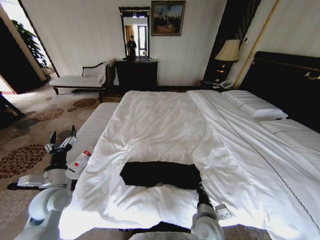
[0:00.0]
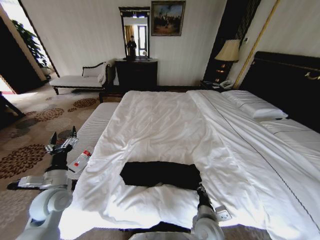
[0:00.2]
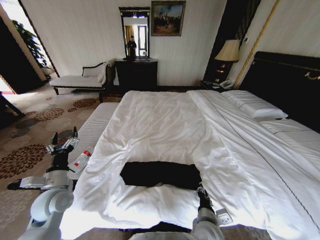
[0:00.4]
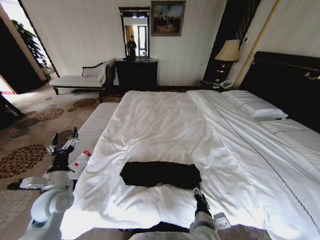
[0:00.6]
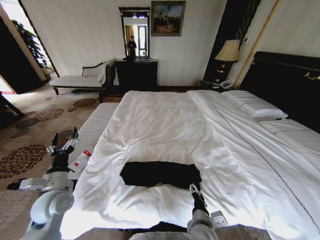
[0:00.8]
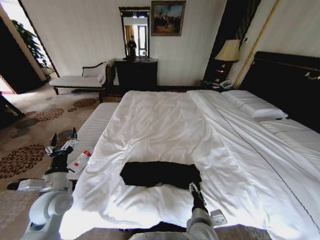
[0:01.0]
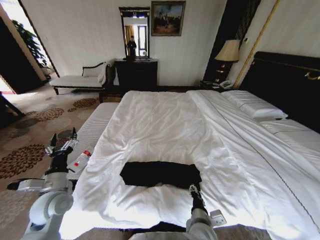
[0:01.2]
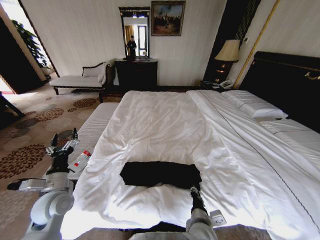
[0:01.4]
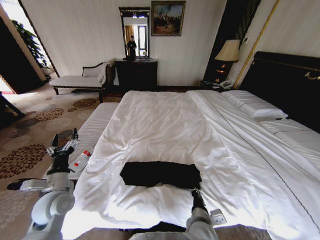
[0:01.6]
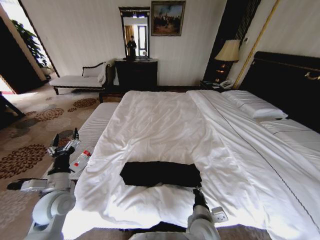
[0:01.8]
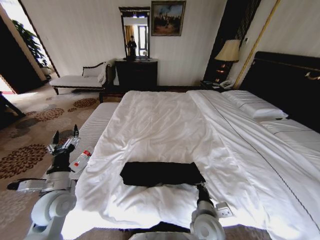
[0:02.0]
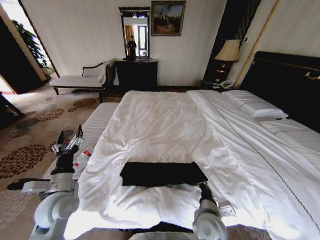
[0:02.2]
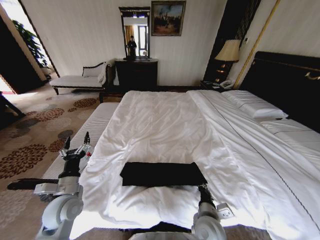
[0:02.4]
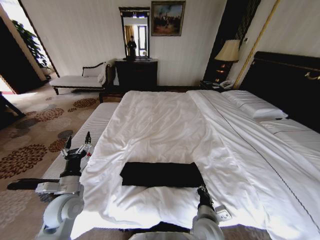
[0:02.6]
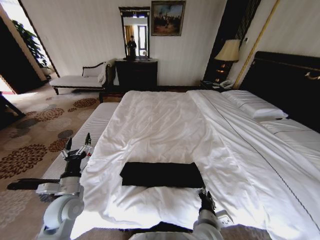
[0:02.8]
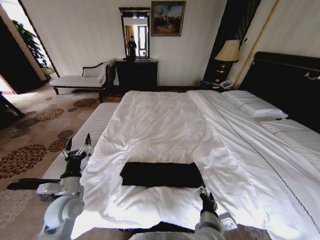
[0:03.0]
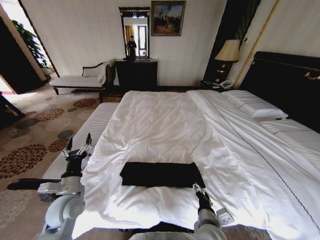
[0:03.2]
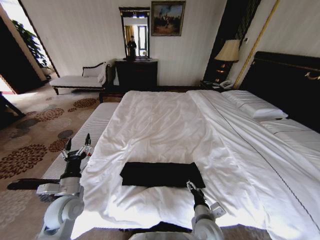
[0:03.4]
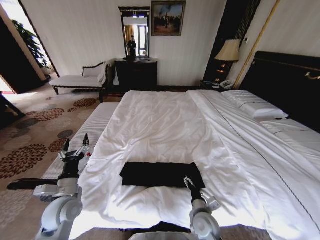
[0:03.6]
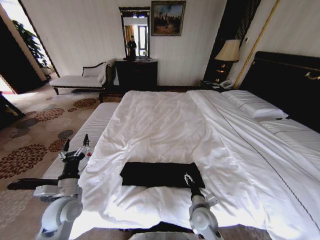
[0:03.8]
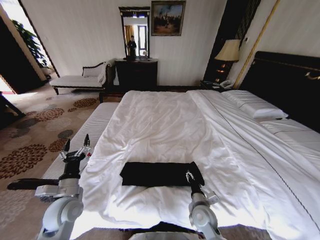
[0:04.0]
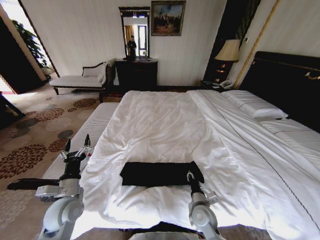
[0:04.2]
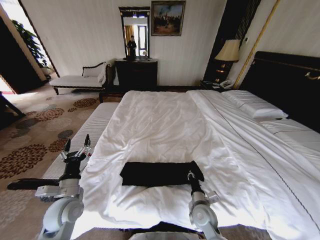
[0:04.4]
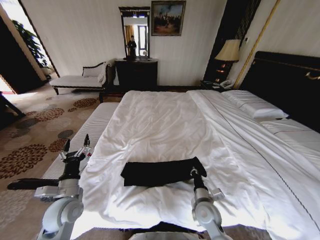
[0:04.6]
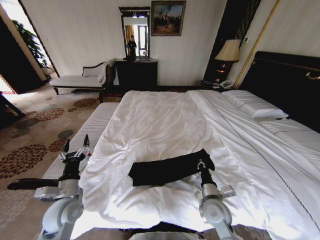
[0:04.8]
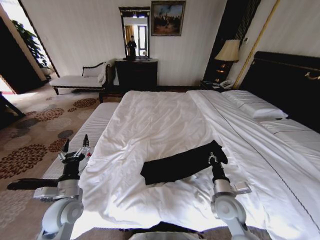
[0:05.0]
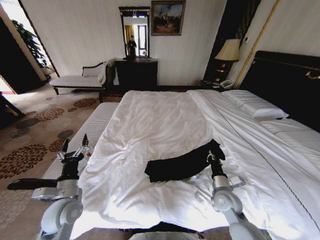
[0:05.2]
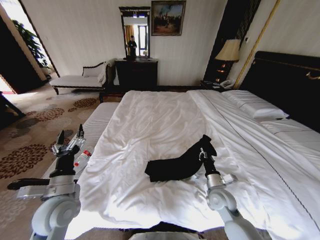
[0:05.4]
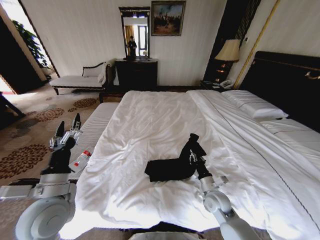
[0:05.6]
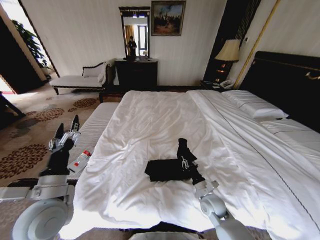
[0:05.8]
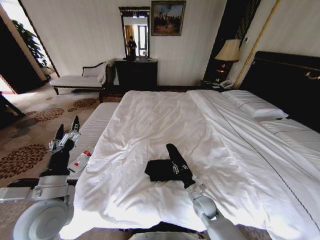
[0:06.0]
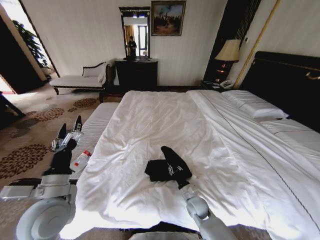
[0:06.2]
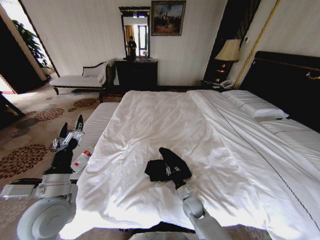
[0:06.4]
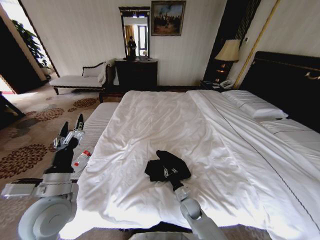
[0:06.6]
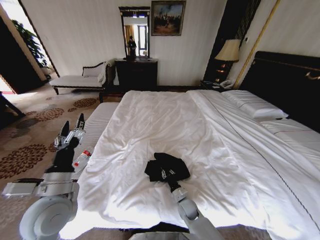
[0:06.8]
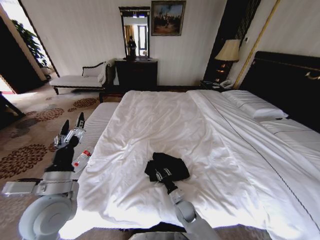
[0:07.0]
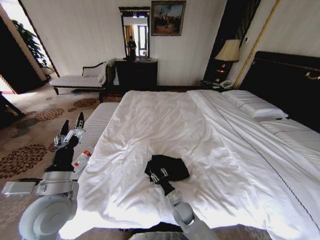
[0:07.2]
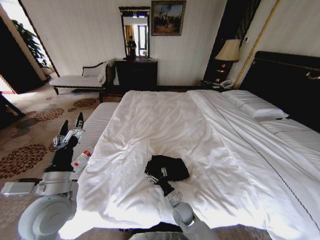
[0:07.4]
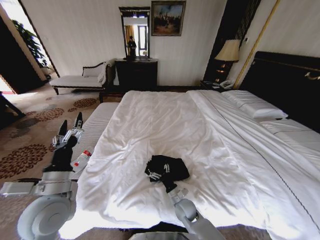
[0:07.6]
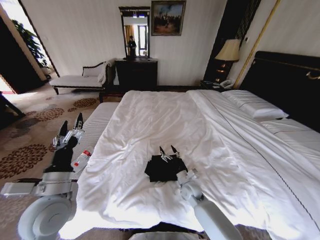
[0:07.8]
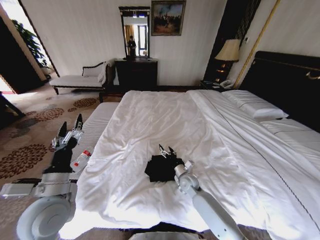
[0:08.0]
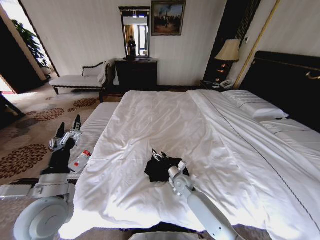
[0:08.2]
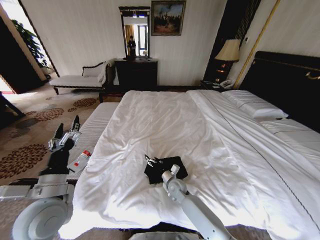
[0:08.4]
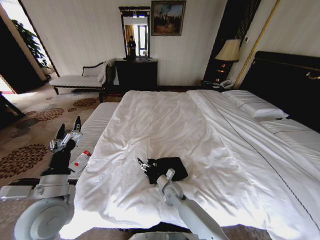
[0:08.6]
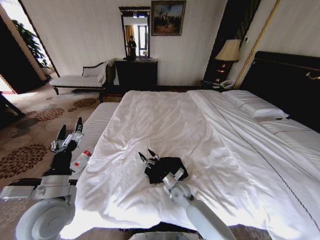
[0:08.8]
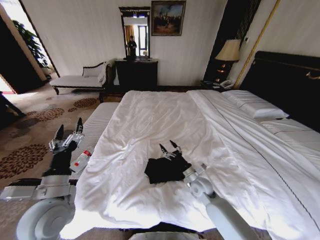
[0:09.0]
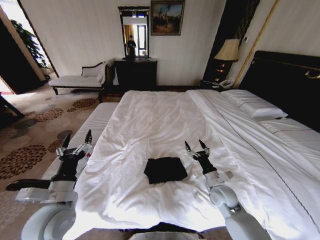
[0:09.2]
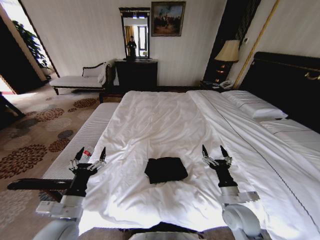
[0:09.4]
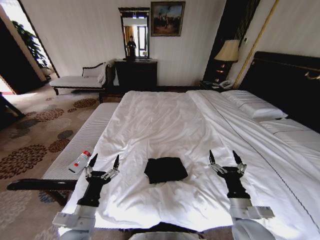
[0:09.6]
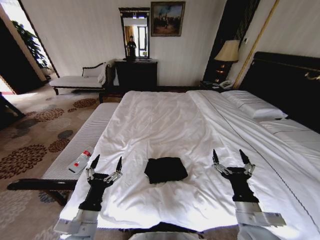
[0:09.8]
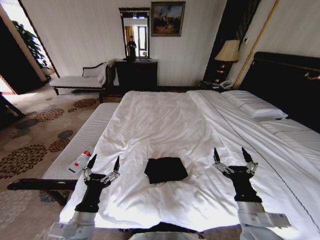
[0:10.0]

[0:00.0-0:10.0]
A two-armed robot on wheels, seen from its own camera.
Task of the whole recording: Fold the clothes on the bed.
0:00.0 to 0:01.4: The right gripper opens its fingers.
0:01.4 to 0:02.8: The right gripper closes, then opens again.
0:02.8 to 0:04.2: The right gripper heads forward and downward, covering some 10 cm, and opens, then closes once more.
0:04.2 to 0:05.8: The left gripper moves upward, approximately 10 cm, while the right gripper goes about 5 cm to the right, and closes up.
0:05.8 to 0:07.2: The right gripper travels to the left and downward by roughly 15 cm, and opens.
0:07.2 to 0:08.6: The right gripper goes approximately 10 cm forward and upward, and opens up.
0:08.6 to 0:10.0: The left gripper shifts some 15 cm downward, backward and to the right; the right gripper travels backward, upward and to the right by about 35 cm.

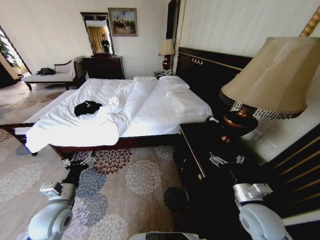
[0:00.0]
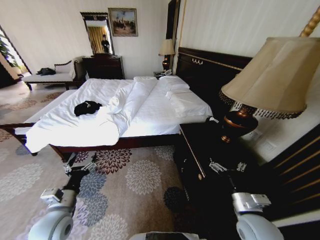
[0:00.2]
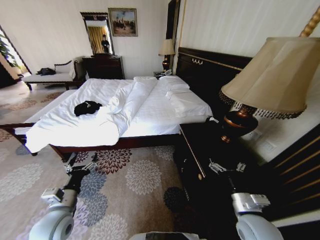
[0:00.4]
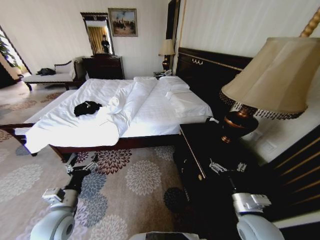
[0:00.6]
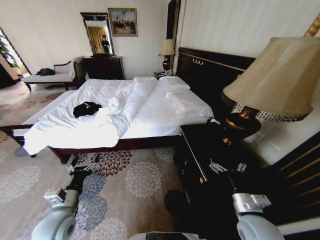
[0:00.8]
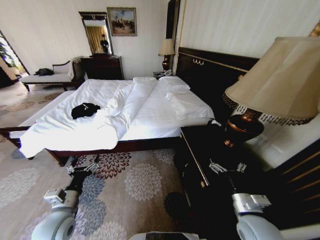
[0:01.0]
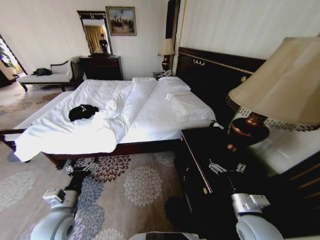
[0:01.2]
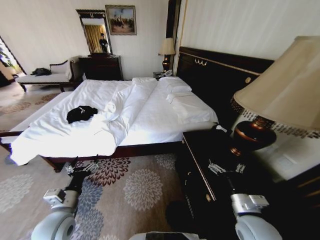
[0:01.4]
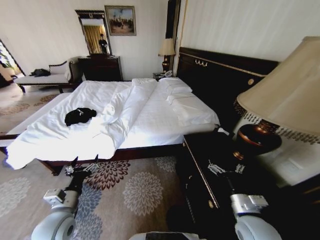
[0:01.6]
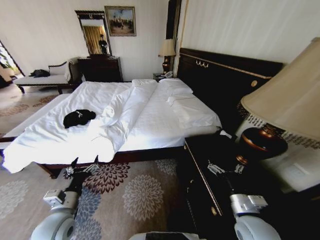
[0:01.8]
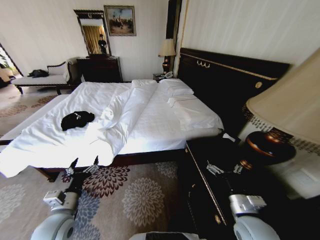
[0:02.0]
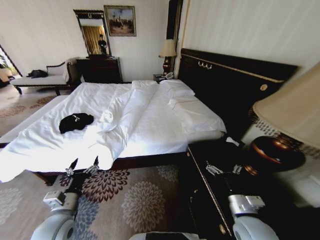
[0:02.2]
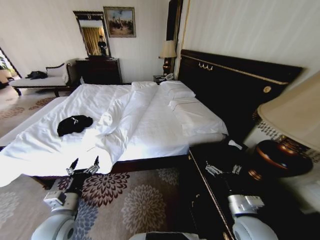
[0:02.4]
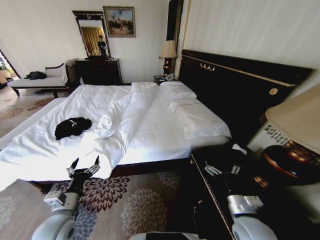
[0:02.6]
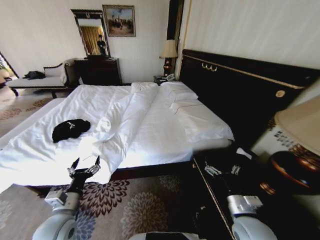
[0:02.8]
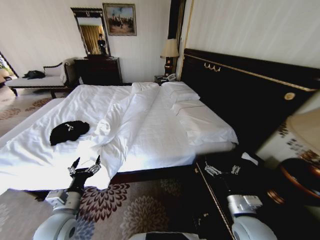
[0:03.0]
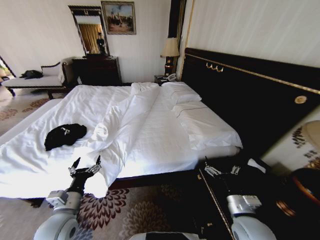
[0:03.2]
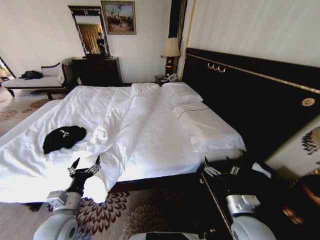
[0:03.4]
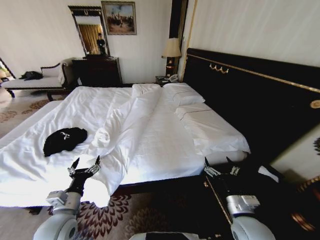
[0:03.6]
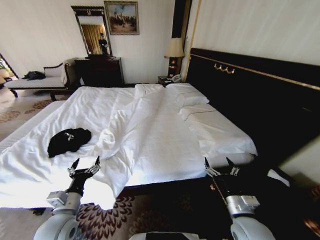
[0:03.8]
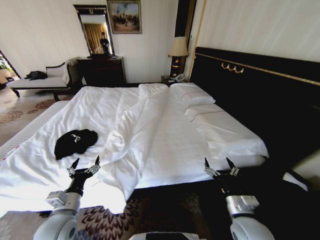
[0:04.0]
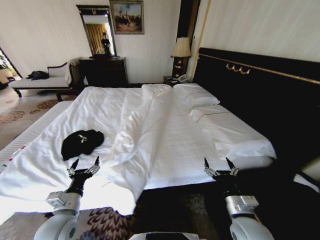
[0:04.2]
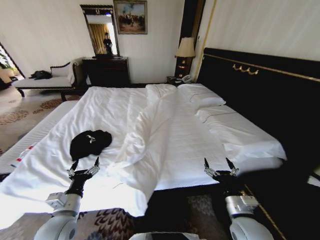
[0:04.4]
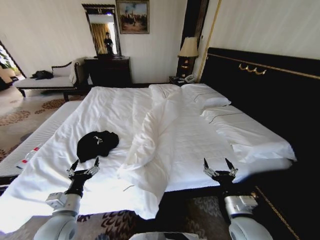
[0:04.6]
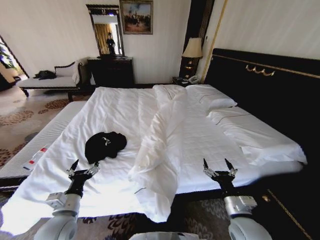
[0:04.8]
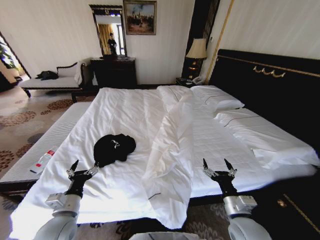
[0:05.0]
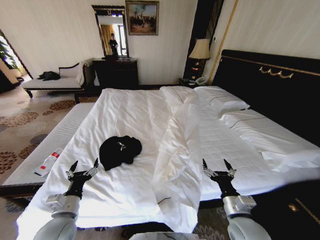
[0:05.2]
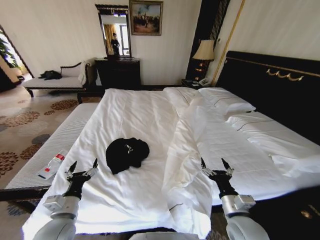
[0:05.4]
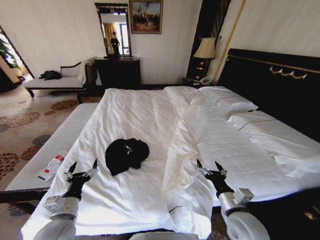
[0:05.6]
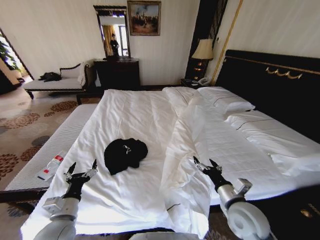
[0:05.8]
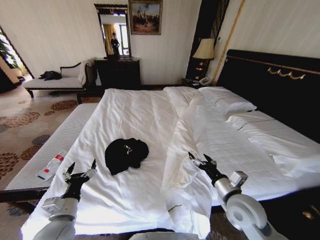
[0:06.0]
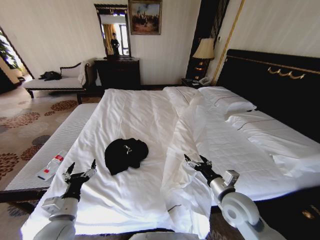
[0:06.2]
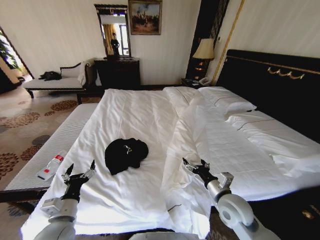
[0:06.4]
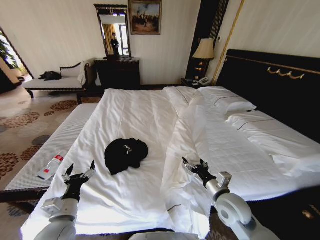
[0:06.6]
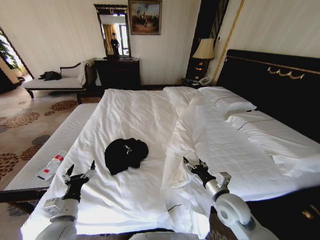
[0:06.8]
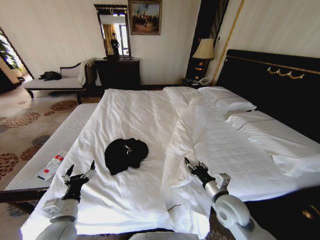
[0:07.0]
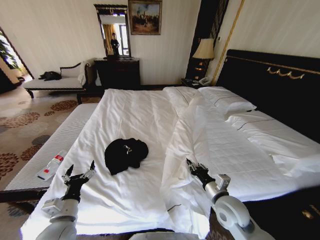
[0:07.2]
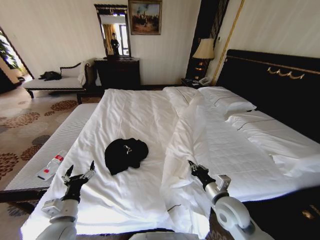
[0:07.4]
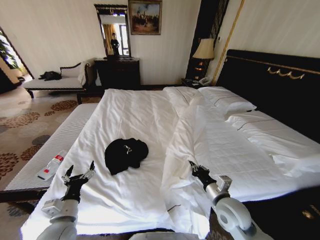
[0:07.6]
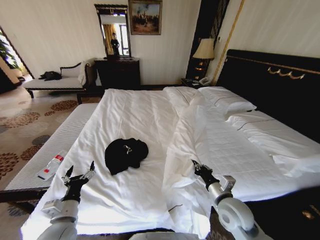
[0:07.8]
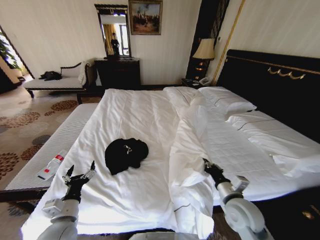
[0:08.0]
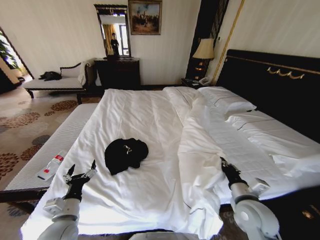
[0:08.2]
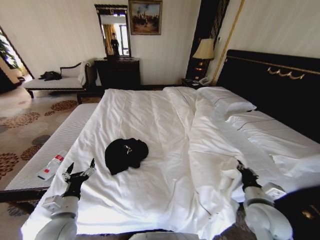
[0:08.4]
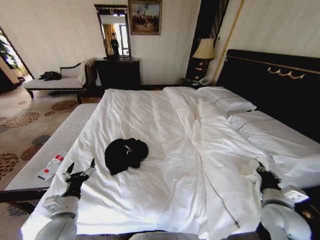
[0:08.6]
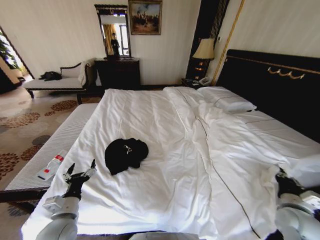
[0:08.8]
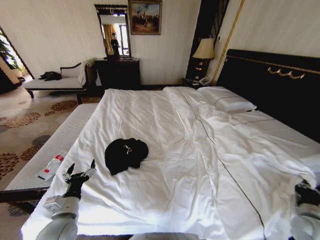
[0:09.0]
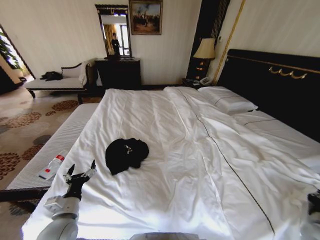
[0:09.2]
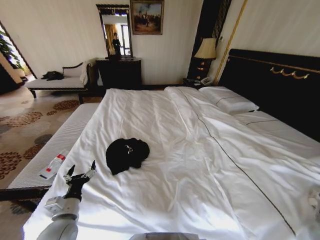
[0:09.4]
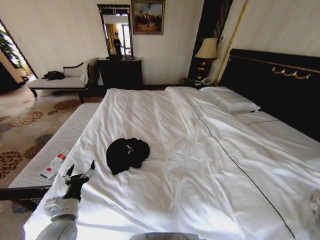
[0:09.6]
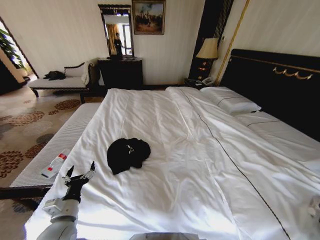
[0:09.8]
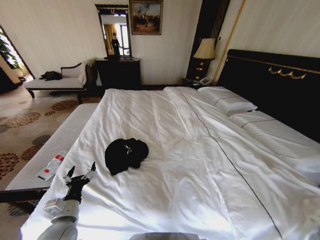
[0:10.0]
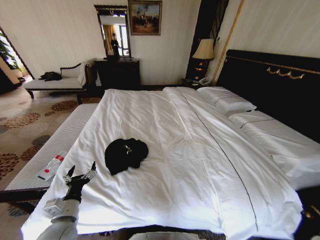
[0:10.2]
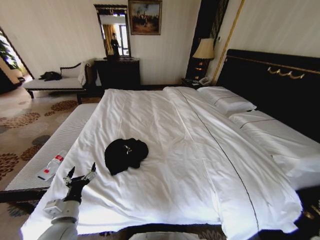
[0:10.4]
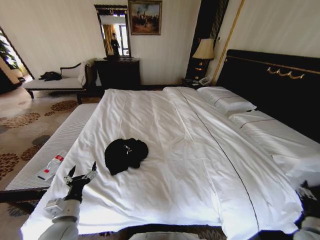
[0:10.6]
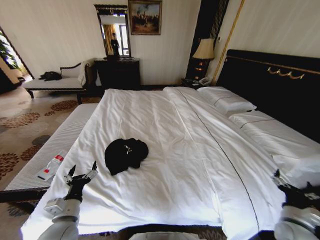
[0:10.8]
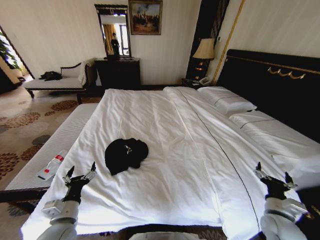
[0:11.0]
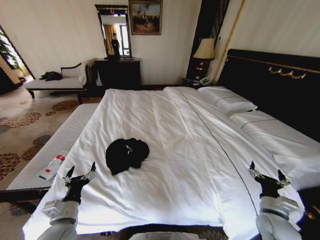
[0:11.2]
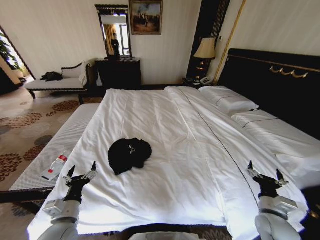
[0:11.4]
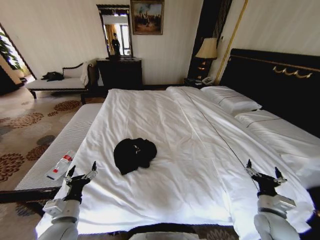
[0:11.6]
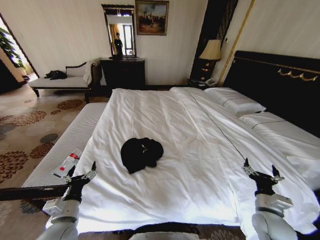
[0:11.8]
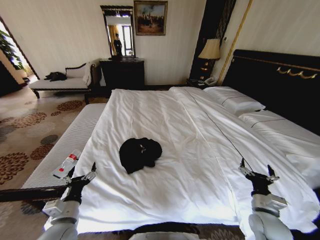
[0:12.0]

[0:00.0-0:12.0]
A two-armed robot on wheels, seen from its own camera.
Task of the whole recording: Fold the clothes on the bed.
0:04.4 to 0:06.0: The right gripper moves about 5 cm.
0:06.0 to 0:07.6: The right gripper closes its fingers.
0:07.6 to 0:09.0: The right gripper travels to the right by about 25 cm.
0:09.0 to 0:10.4: The right gripper is displaced to the right, downward and backward by about 10 cm, and opens.
0:10.4 to 0:12.0: The right gripper moves to the left, some 20 cm, and opens its fingers.
